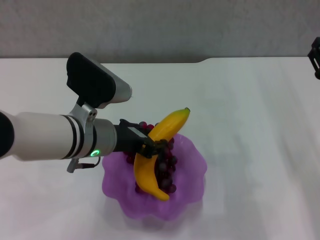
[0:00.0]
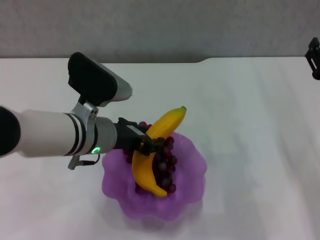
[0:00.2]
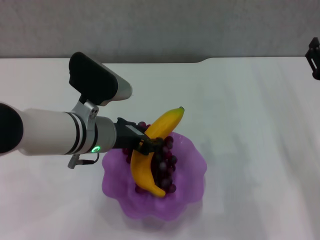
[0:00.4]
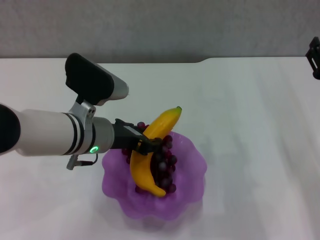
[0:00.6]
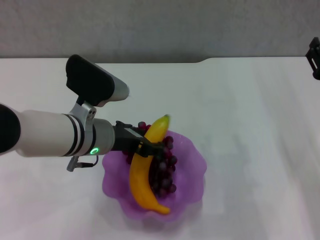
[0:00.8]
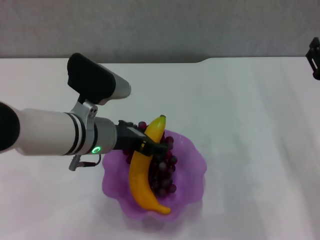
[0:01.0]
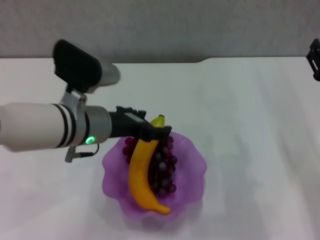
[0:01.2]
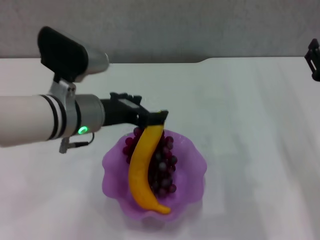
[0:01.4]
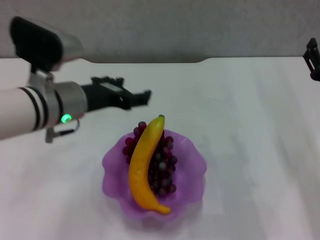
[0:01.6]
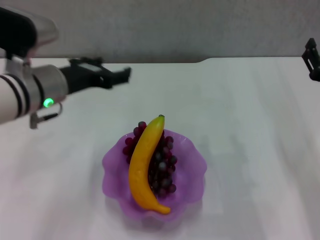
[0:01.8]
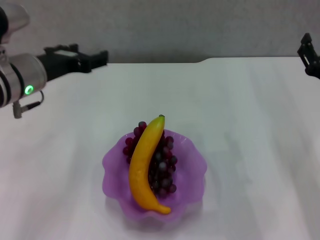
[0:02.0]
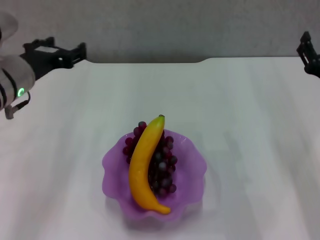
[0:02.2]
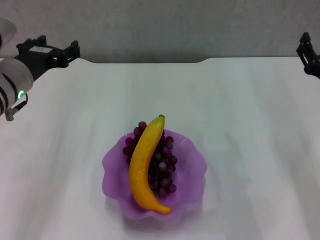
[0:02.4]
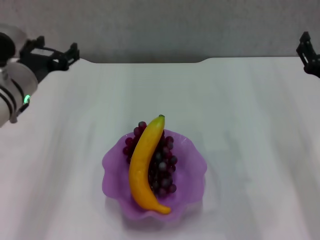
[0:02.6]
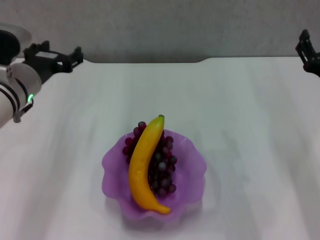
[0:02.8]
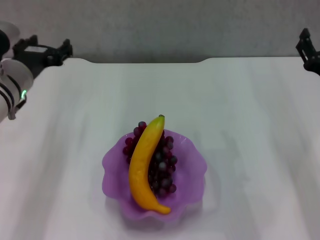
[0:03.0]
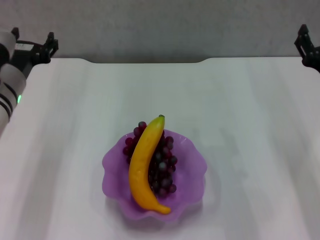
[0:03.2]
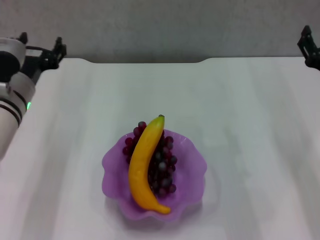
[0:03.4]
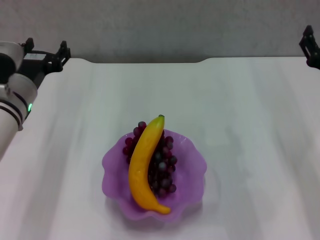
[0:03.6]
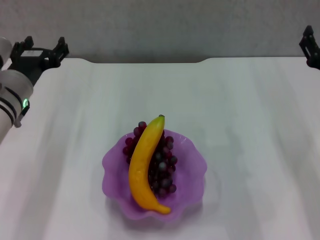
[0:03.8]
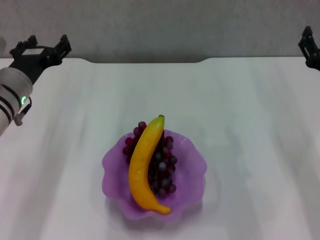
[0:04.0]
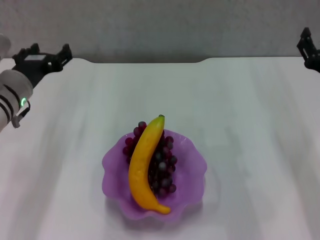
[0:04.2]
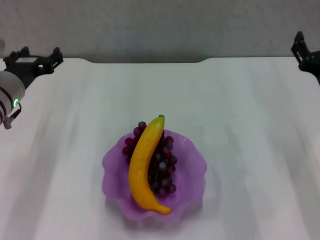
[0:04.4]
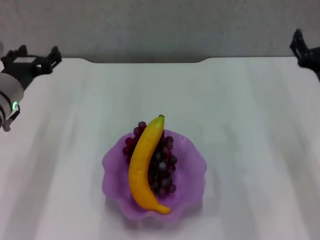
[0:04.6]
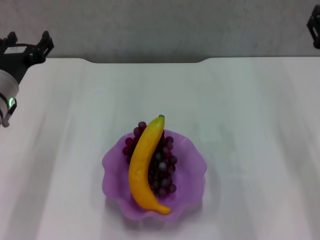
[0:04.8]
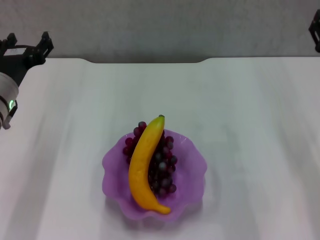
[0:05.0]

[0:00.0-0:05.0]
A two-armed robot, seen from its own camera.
0.0 to 1.6 s: The left gripper ends up roughly 5 cm from where it was, and opens its fingers.
1.6 to 3.4 s: The left gripper travels to the left by roughly 5 cm.
3.4 to 5.0 s: There are only small adjustments of the grippers.

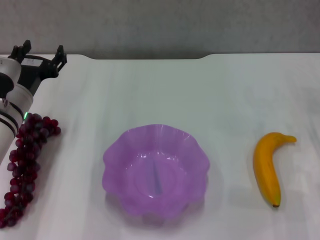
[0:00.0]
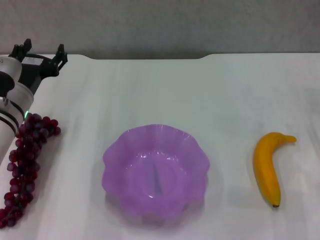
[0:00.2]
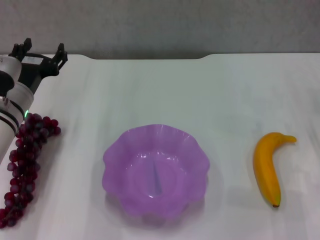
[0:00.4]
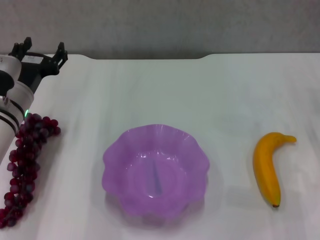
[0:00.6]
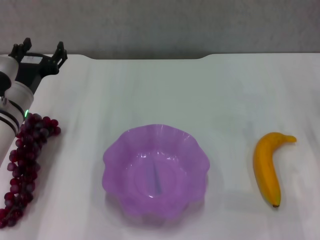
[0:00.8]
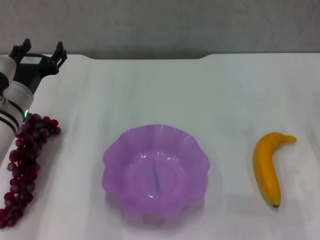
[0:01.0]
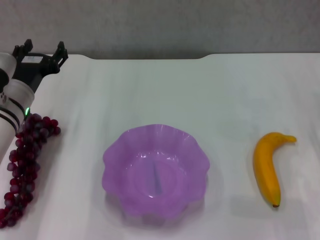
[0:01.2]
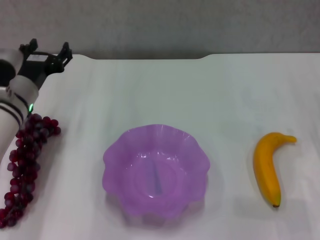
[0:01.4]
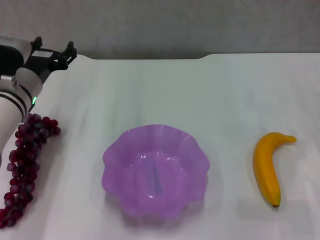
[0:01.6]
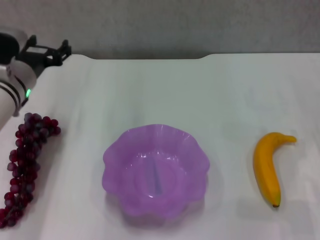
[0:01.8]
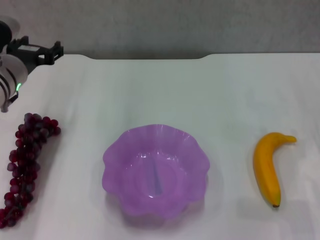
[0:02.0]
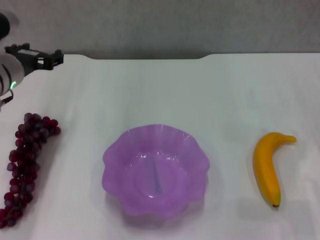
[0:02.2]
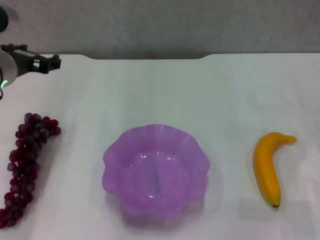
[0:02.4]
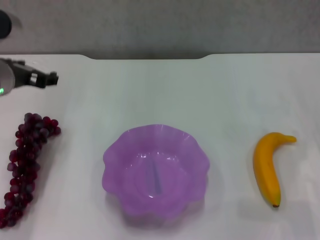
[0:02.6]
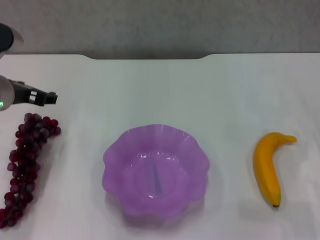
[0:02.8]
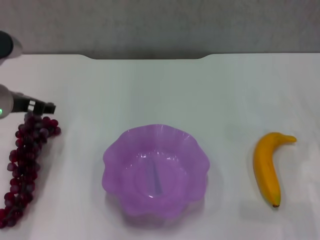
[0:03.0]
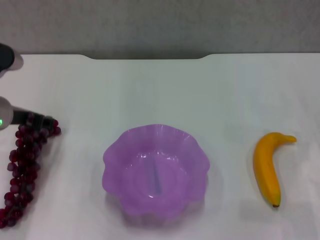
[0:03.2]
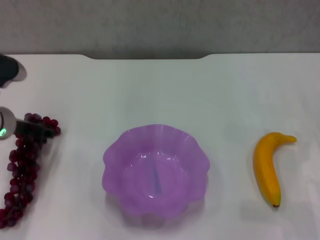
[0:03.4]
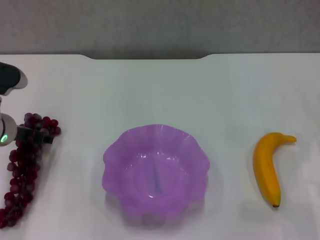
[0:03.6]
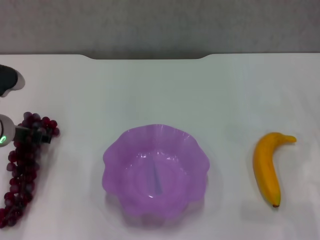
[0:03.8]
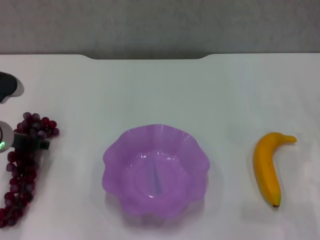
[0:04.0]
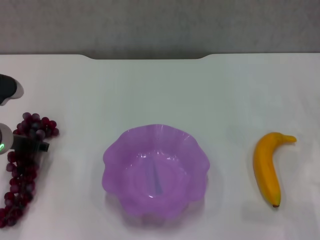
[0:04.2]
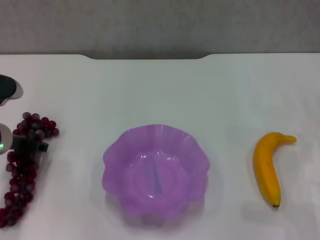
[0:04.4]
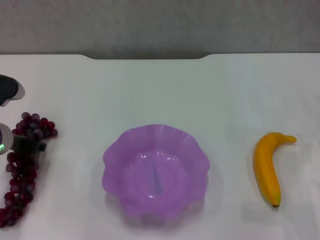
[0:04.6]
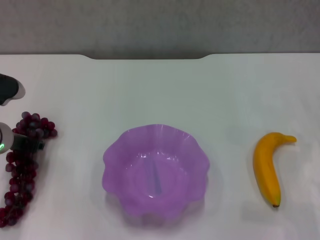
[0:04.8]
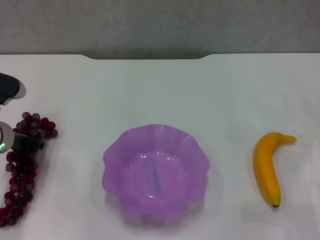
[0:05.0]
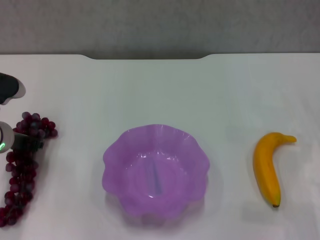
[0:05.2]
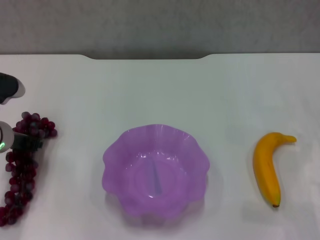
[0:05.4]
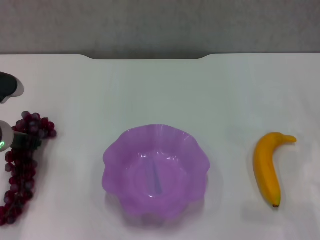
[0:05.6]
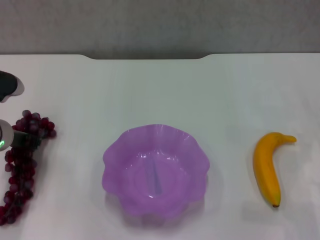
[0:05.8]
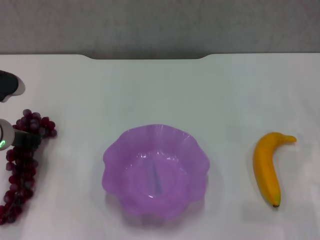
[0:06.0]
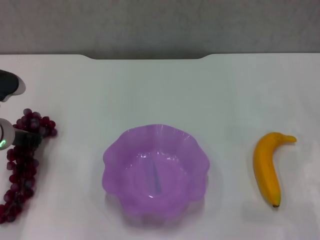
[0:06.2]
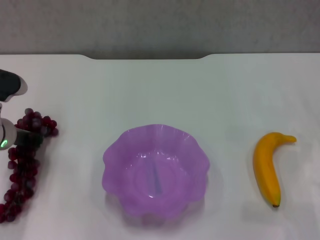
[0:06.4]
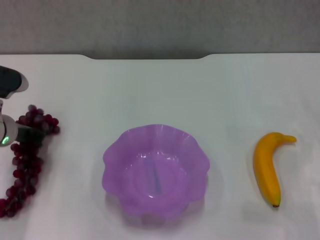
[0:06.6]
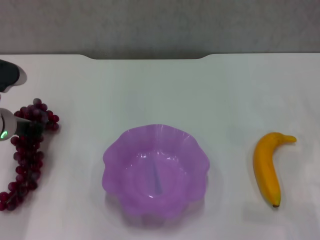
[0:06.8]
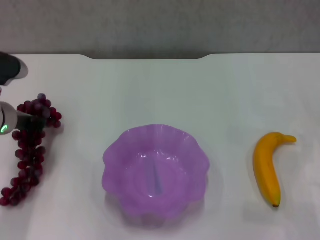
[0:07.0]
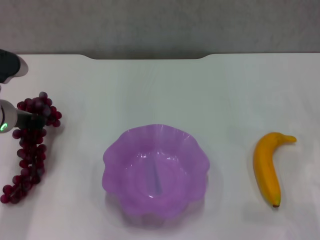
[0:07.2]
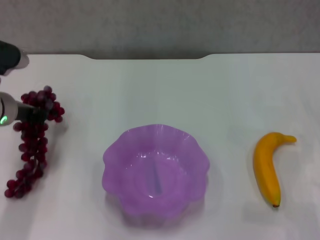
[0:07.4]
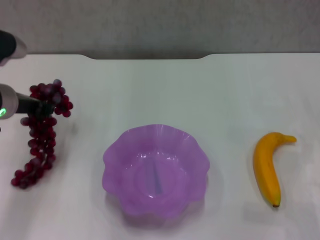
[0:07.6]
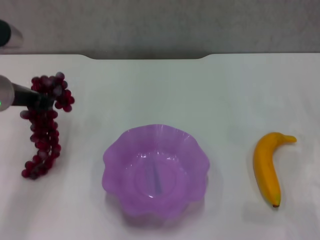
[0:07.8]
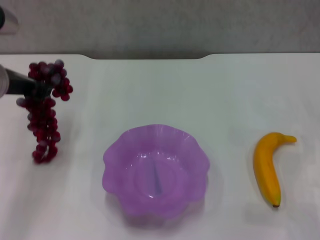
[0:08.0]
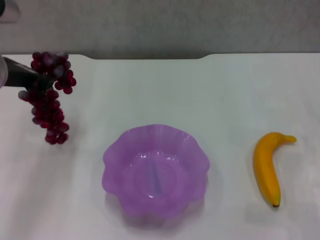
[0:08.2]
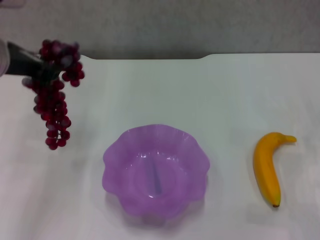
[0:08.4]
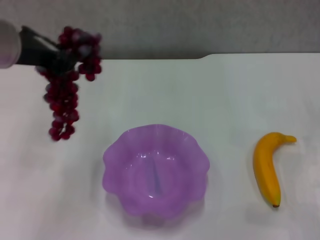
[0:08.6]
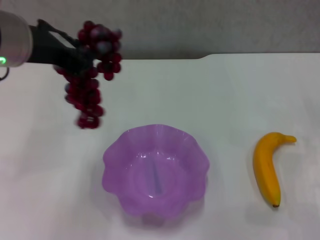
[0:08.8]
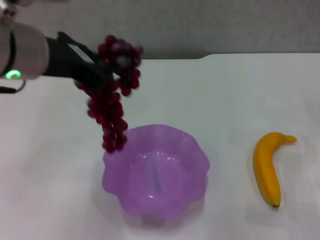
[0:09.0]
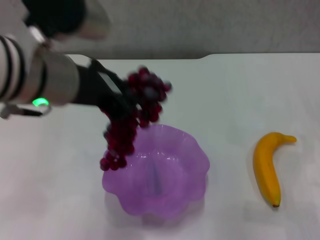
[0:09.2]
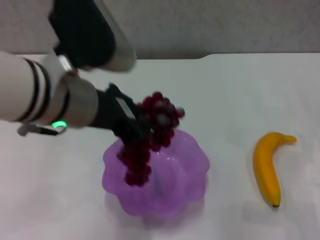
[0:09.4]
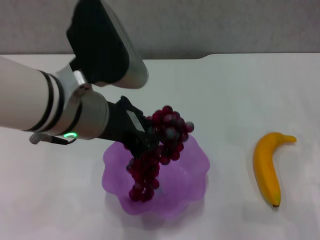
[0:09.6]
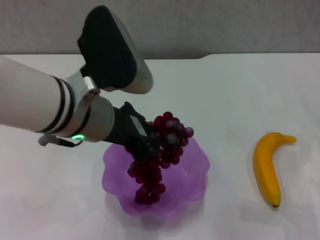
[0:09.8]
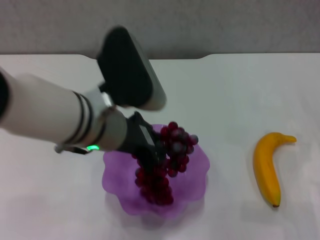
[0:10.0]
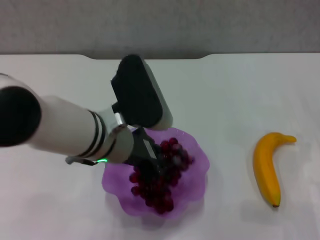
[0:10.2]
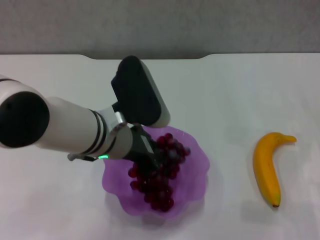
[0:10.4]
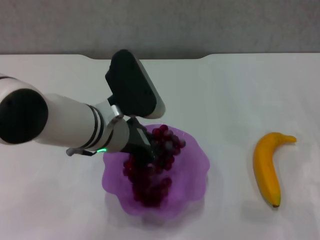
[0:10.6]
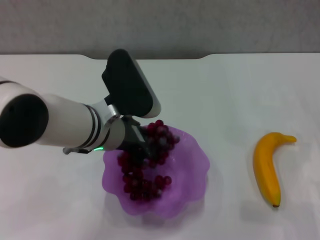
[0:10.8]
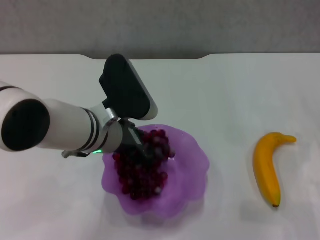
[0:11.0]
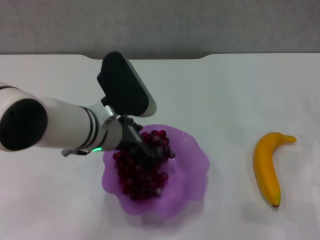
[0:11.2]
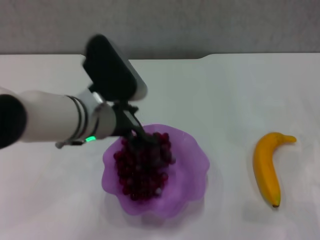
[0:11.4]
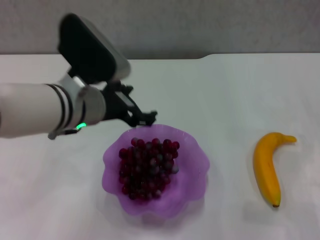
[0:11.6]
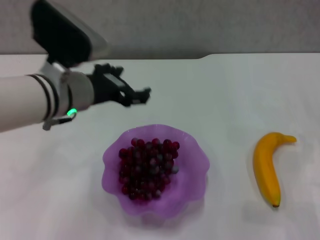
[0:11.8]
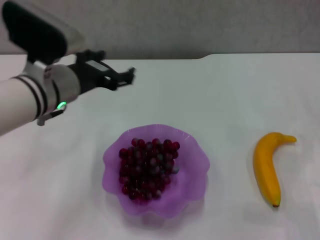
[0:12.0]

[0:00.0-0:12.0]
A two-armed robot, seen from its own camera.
Step, 0.0 to 6.2 s: Grasp the grape with left gripper.
Step, 6.6 to 11.2 s: Place the grape in the purple plate with left gripper.
0.0 to 1.6 s: The grippers make only small movements.
1.6 to 3.0 s: The left gripper changes place by about 5 cm.
3.0 to 4.4 s: The left gripper shifts roughly 5 cm downward.
4.4 to 6.0 s: The left gripper closes its fingers.
6.0 to 7.6 s: The left gripper moves upward, about 5 cm.
7.6 to 9.0 s: The left gripper shifts about 20 cm upward, to the right and backward.
9.0 to 10.4 s: The left gripper travels downward and to the right by some 15 cm.
10.4 to 12.0 s: The left gripper shifts roughly 10 cm to the left, and opens up.

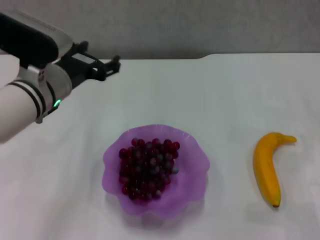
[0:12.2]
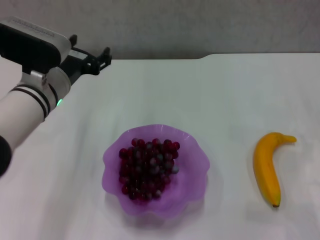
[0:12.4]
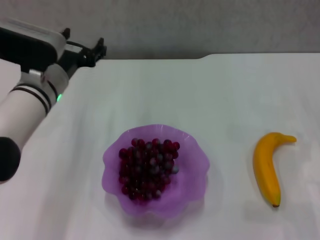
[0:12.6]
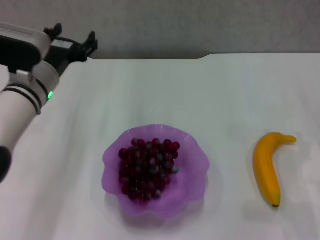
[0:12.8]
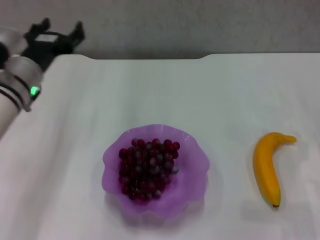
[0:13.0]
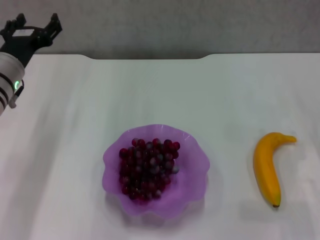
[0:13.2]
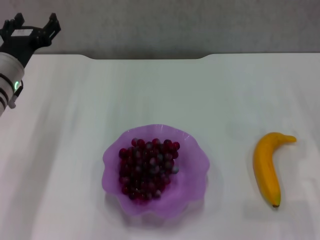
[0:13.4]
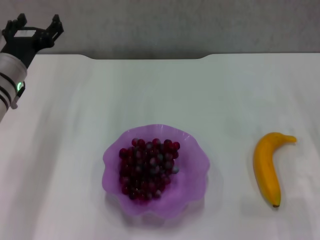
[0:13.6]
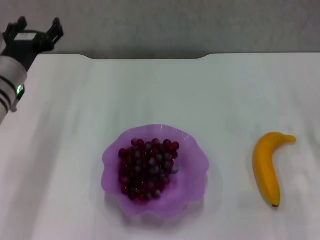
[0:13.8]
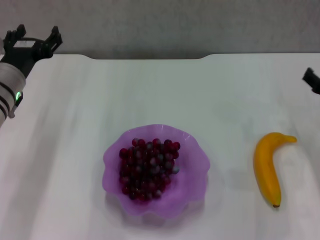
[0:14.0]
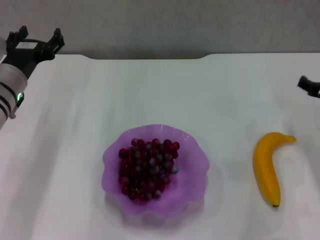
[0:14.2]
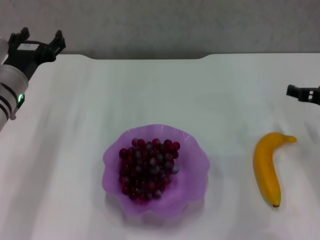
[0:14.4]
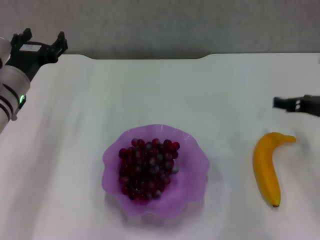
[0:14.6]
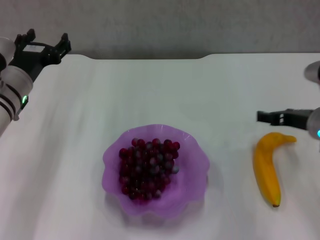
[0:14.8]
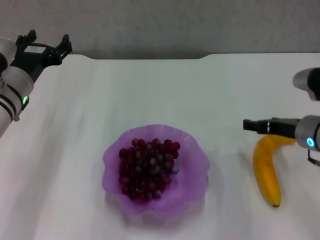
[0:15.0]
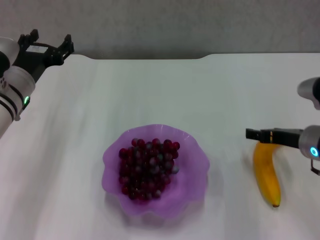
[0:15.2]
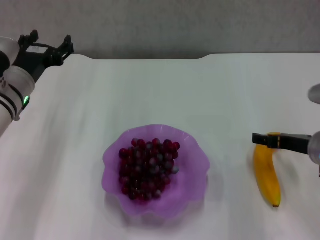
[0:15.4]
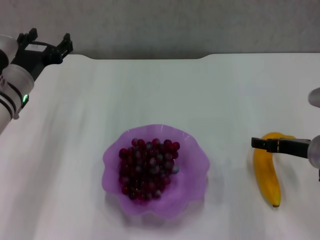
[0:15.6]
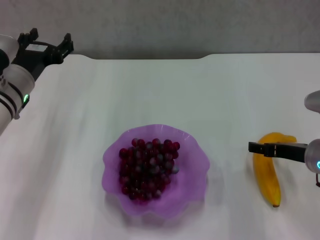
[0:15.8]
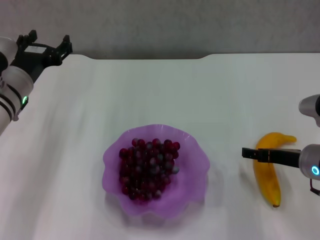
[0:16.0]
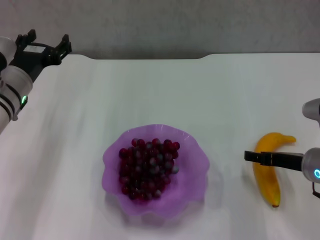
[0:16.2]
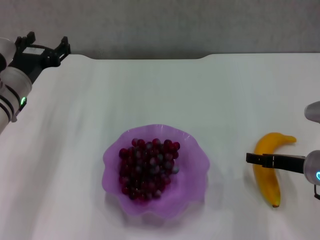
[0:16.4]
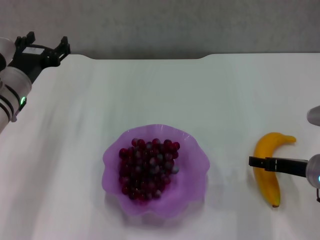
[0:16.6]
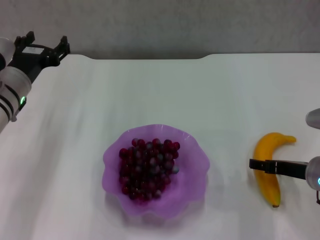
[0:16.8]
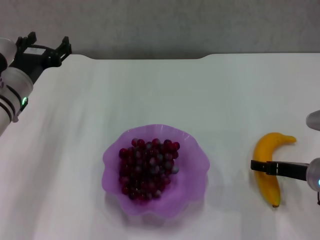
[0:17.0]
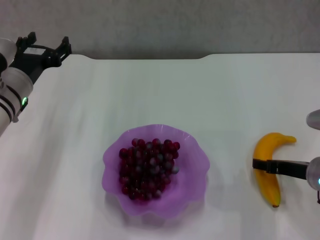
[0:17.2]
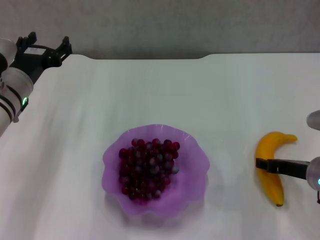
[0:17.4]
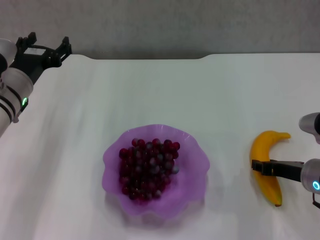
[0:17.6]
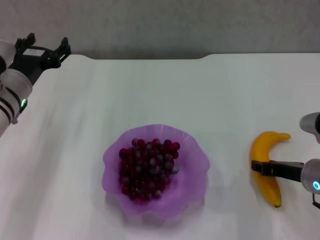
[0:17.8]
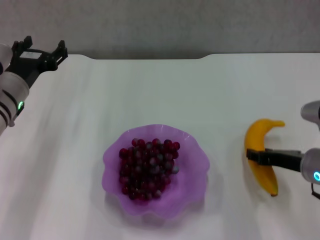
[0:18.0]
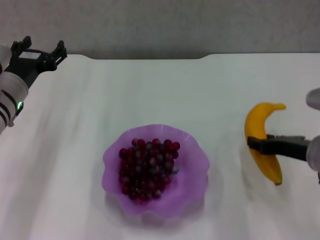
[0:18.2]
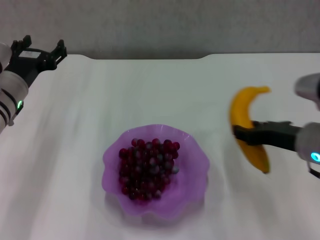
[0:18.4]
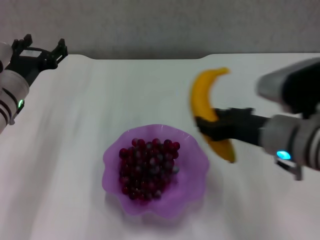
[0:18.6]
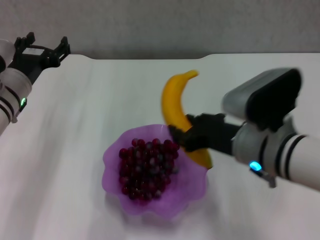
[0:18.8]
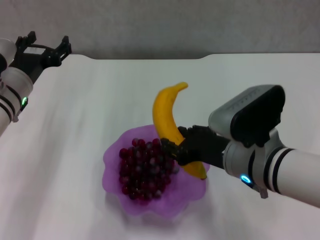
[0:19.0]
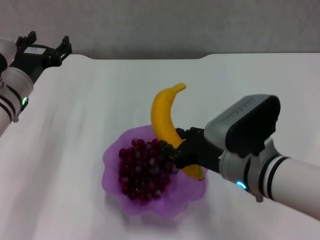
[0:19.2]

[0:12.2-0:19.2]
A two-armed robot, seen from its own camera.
Step, 12.2 to 17.4 s: Grasp the banana with right gripper.
12.2 to 13.6 s: The left gripper is displaced to the left by approximately 5 cm.
13.6 to 15.0 s: The right gripper shifts roughly 10 cm to the left.
15.0 to 16.4 s: The right gripper ends up roughly 5 cm from where it was.
16.4 to 17.8 s: The right gripper closes.
17.8 to 19.2 s: The right gripper shifts roughly 15 cm to the left.
